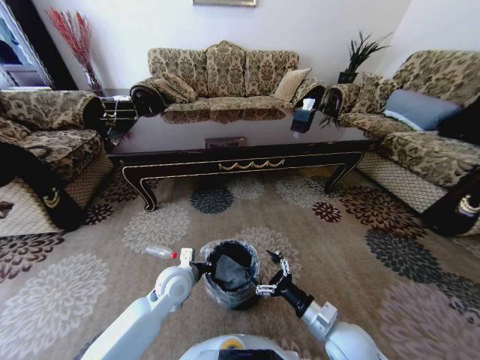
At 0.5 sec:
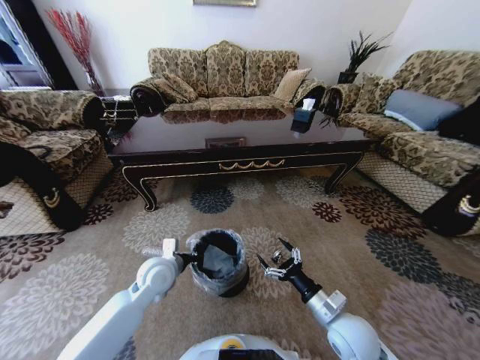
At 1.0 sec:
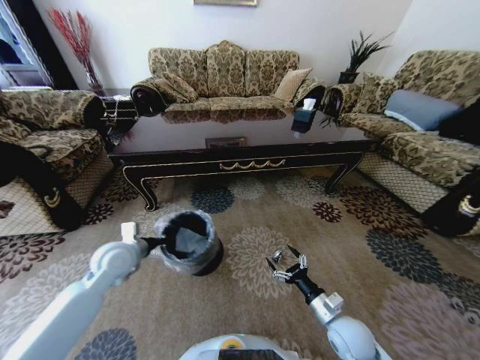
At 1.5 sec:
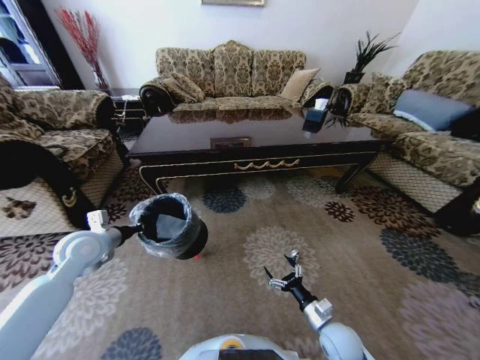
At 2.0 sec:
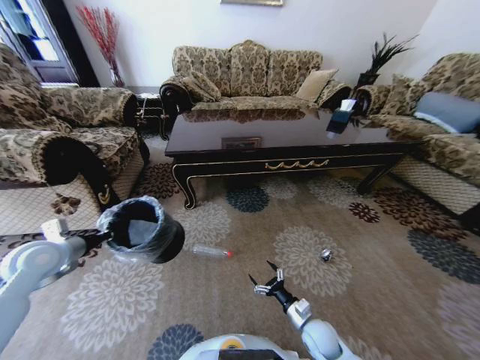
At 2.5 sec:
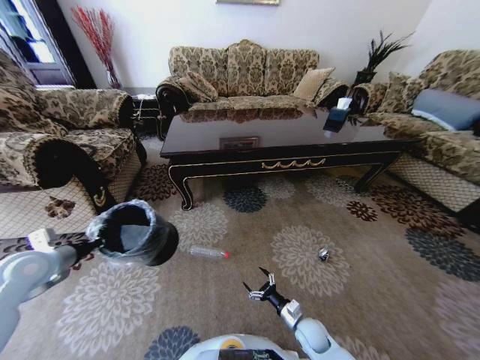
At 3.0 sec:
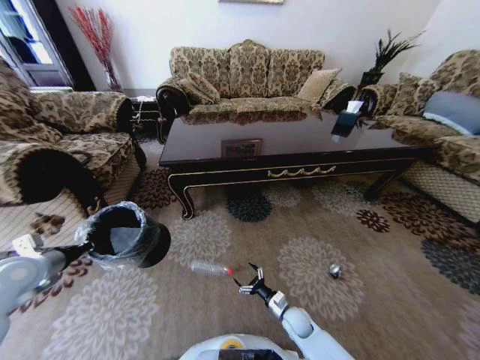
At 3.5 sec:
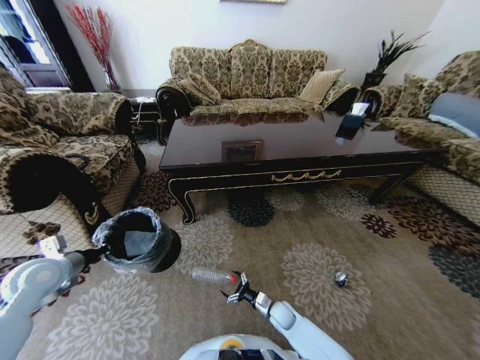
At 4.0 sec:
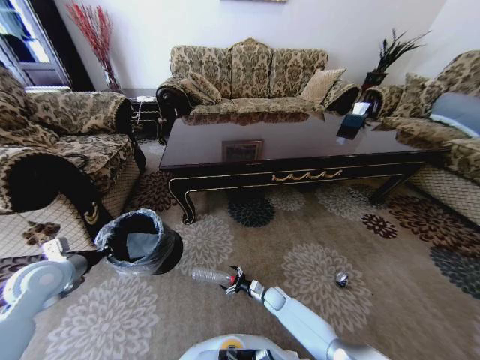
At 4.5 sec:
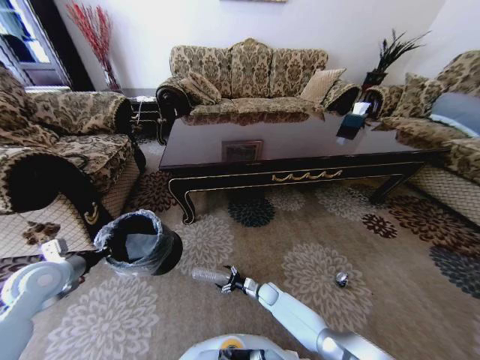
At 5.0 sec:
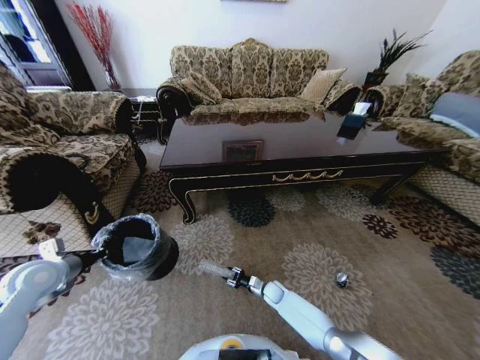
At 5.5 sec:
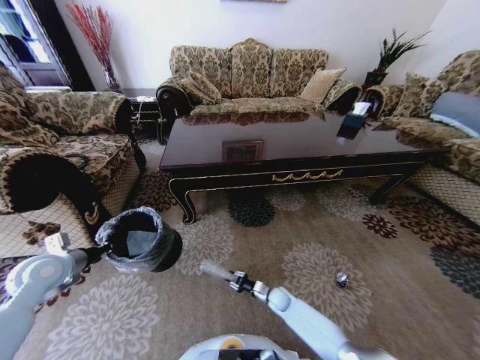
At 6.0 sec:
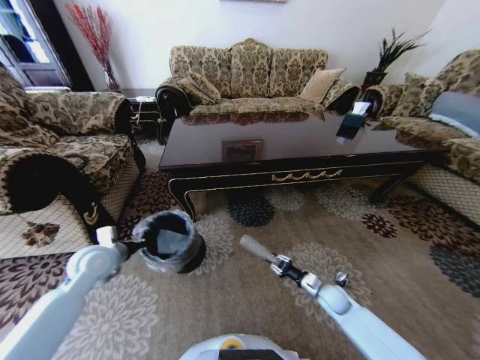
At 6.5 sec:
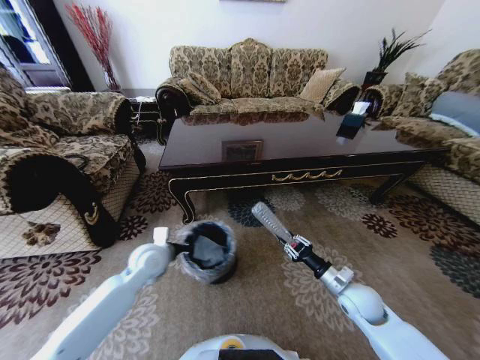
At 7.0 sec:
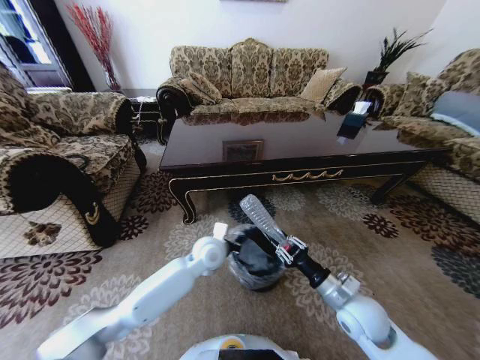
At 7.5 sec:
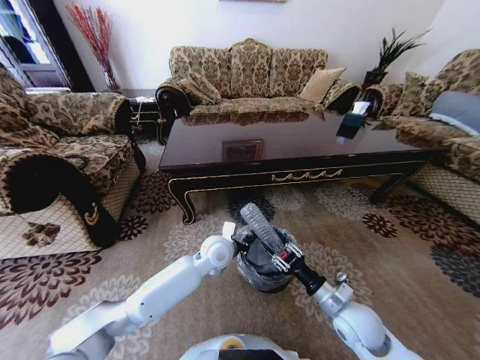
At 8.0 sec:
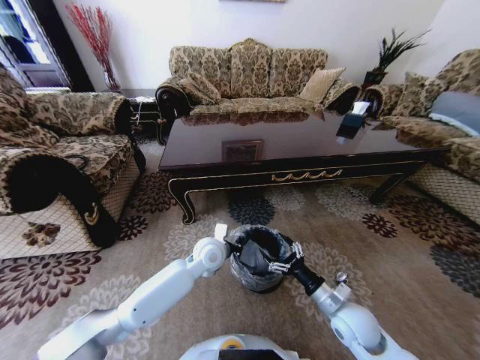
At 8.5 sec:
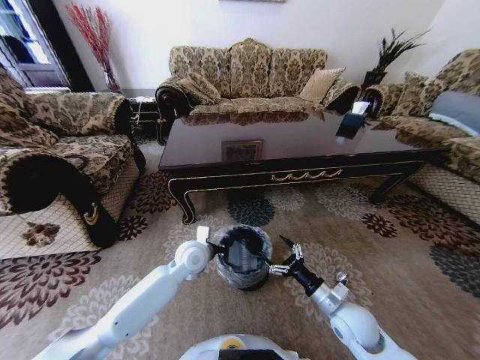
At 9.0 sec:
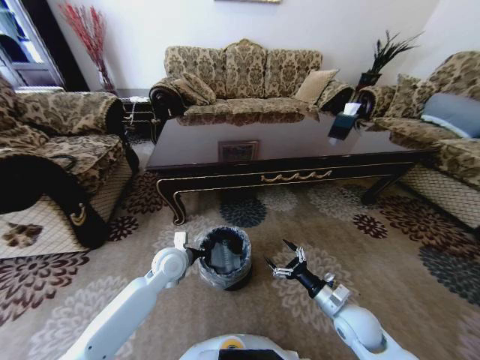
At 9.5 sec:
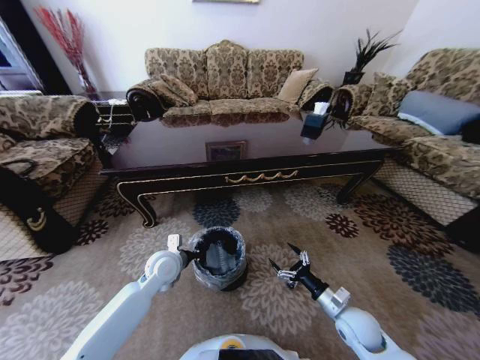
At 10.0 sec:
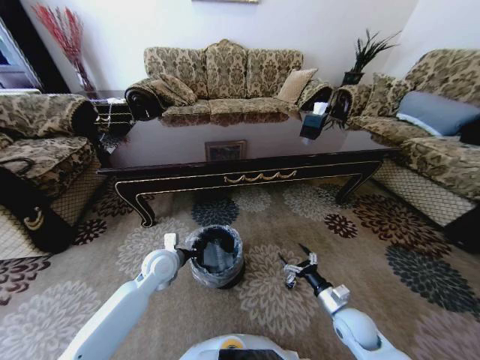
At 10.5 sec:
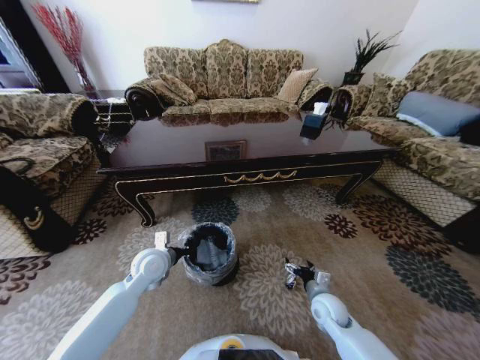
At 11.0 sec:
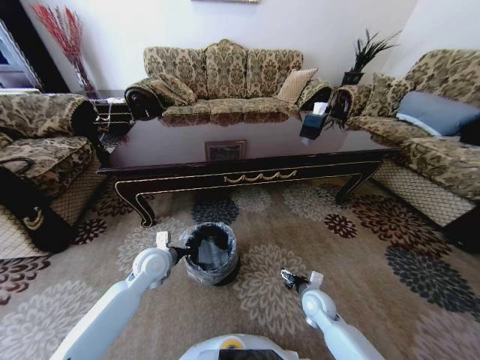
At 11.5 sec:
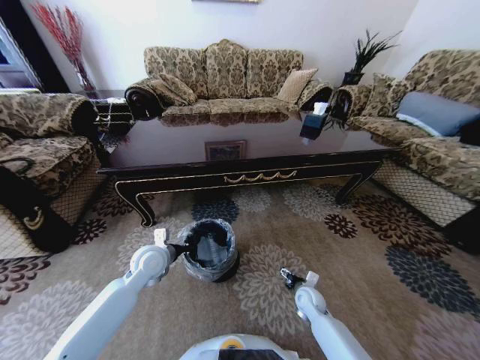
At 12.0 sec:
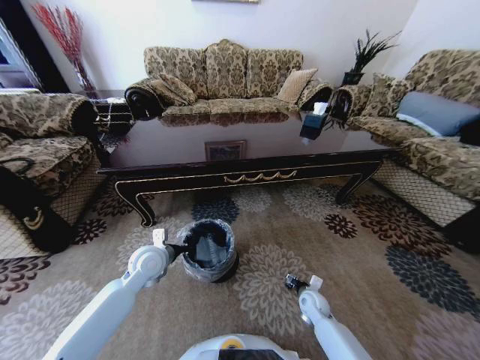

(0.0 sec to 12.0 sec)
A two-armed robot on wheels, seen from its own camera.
Task of the whole recording: Move to the front of the table and pick up the trash from the floor, then place it into the trash bin.
0.0 sec - 2.0 sec: The left gripper travels to the left and upward by about 30 cm, while the right gripper travels downward by roughly 15 cm.
2.0 sec - 4.0 sec: The right gripper shifts about 20 cm forward, downward and to the left.
4.0 sec - 6.0 sec: The left gripper goes approximately 10 cm to the right and forward, while the right gripper heads to the right and upward, covering about 20 cm, and closes.
6.0 sec - 8.0 sec: The left gripper travels to the right by some 30 cm. Meanwhile the right gripper is displaced upward, backward and to the left by roughly 15 cm, and opens.
8.0 sec - 10.0 sec: The left gripper is displaced to the left by some 15 cm. The right gripper travels downward by approximately 5 cm.
10.0 sec - 12.0 sec: The right gripper heads downward and forward, covering some 10 cm.

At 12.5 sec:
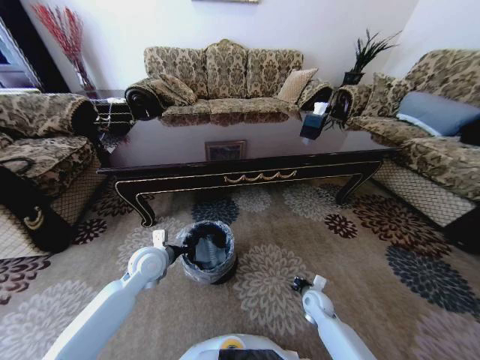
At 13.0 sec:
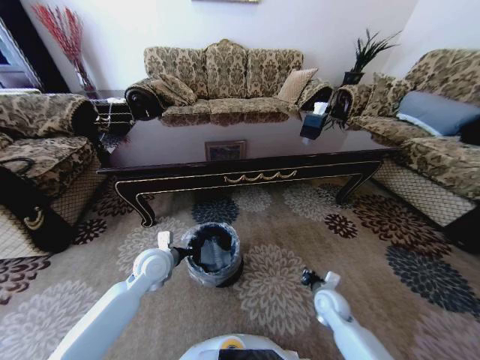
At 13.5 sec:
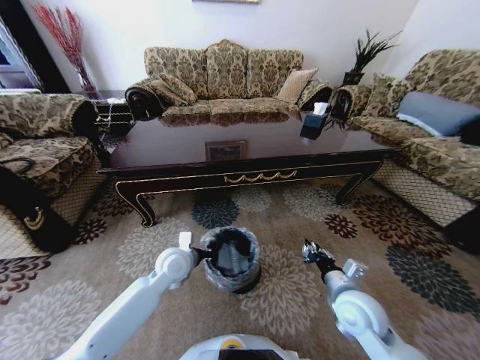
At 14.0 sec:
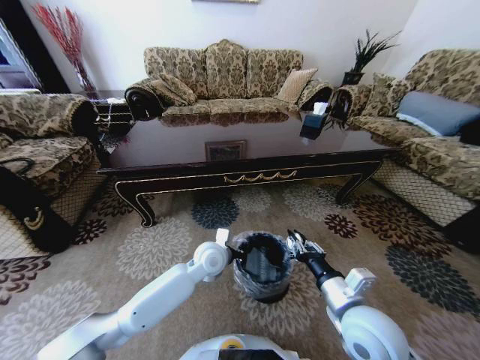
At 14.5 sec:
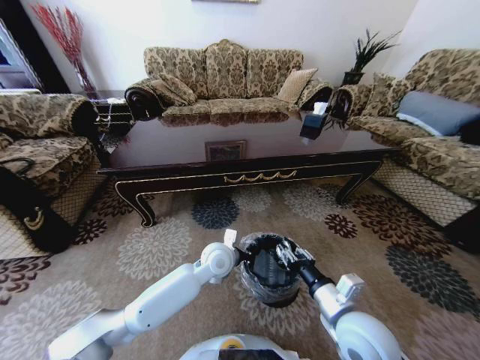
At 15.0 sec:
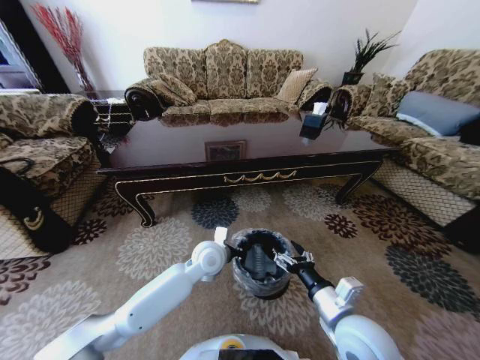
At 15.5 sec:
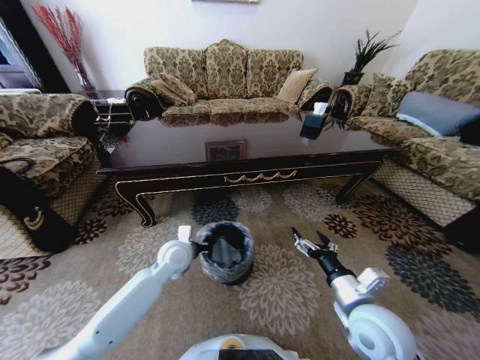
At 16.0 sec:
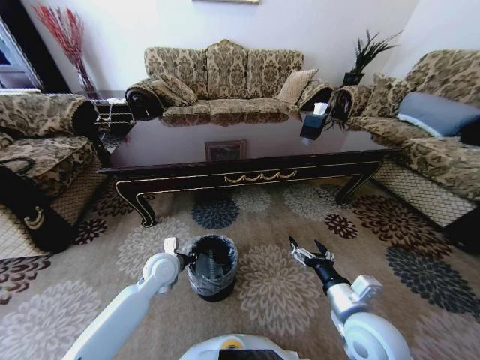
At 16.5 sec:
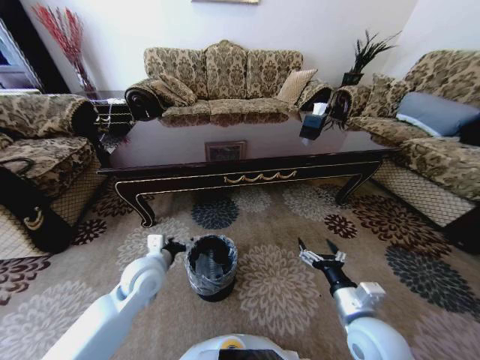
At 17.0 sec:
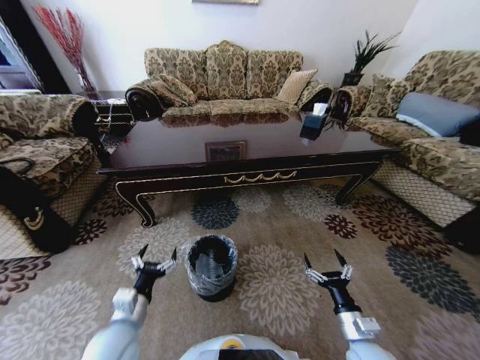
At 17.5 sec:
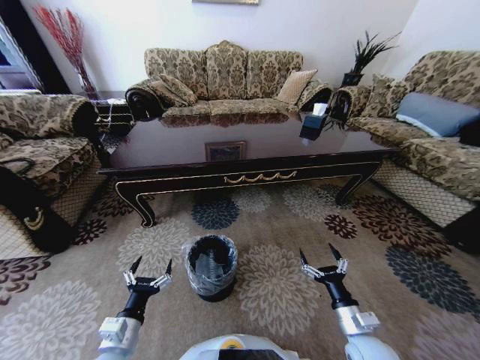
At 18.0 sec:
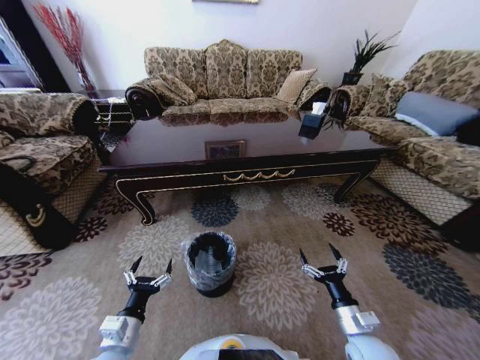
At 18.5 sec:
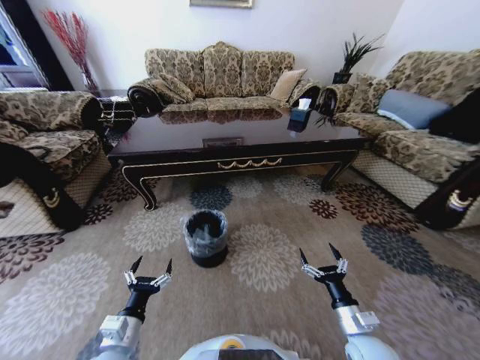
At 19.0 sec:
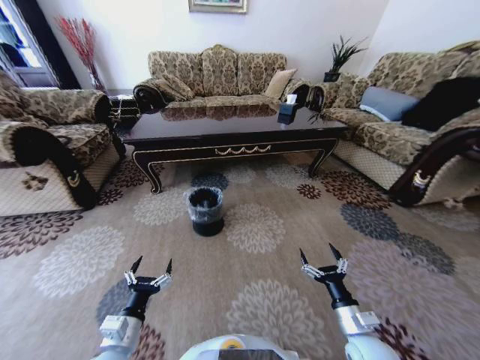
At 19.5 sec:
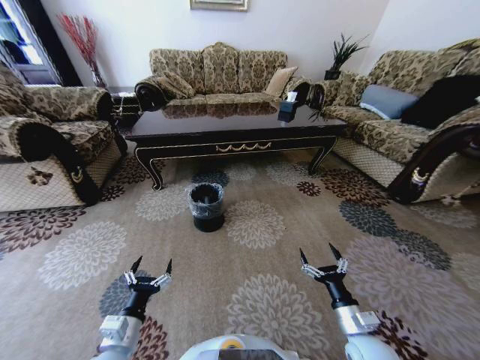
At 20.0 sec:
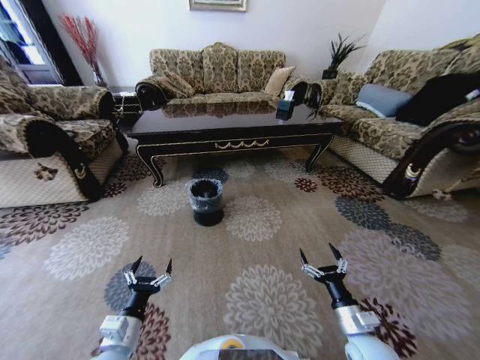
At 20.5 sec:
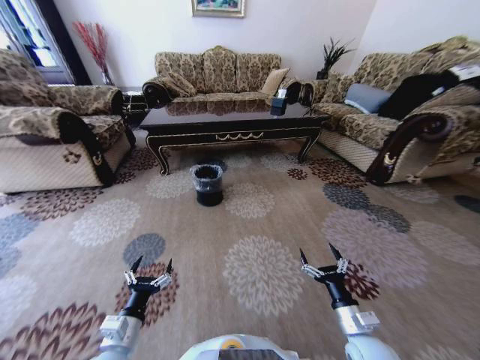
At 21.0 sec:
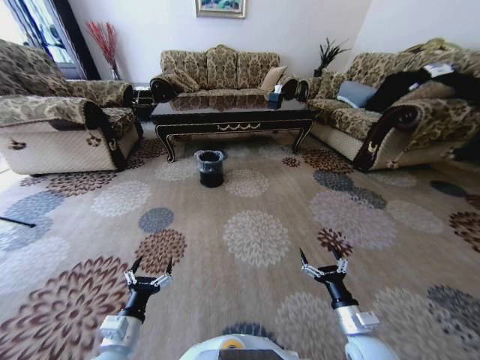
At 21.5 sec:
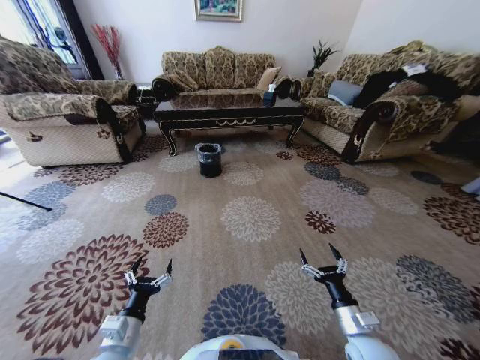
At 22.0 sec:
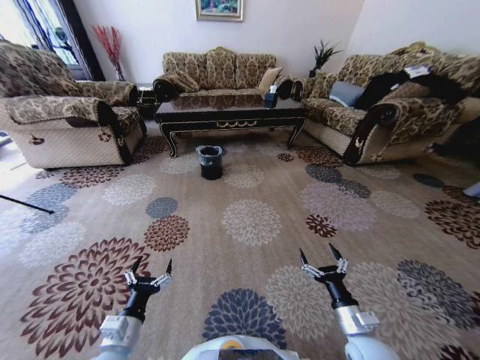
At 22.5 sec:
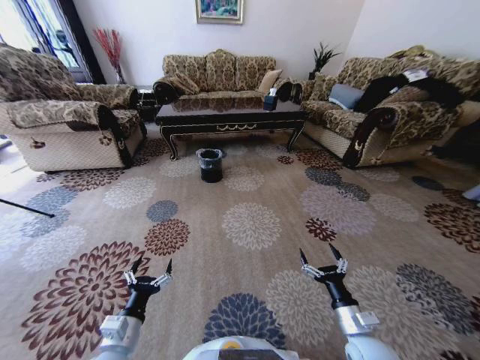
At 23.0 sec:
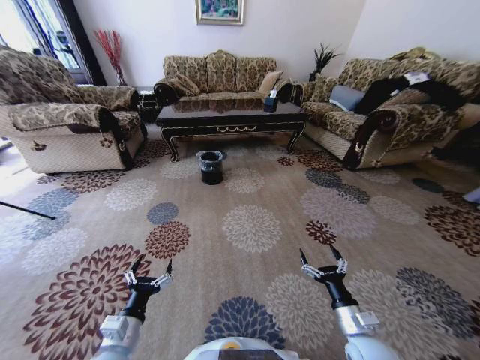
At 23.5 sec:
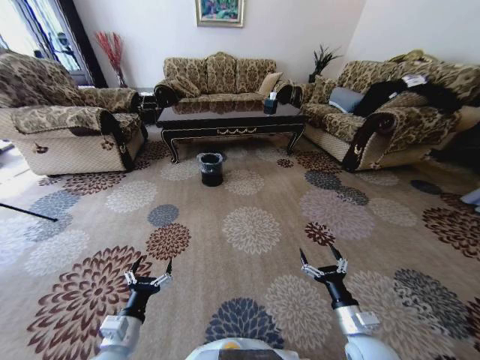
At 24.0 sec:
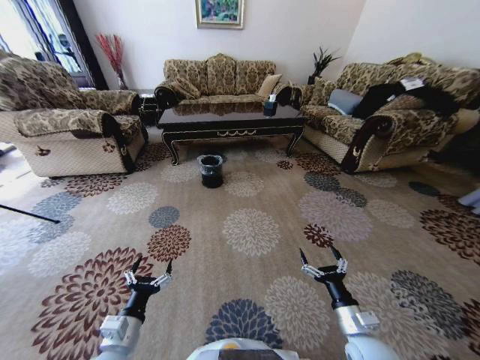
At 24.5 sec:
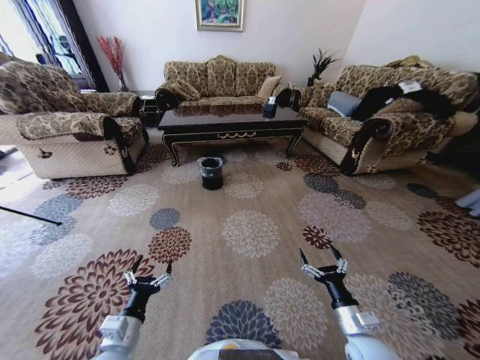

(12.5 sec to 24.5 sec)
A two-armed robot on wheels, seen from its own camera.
Task of the whole recording: Move to the front of the table and pick up the trash from the floor, then place it into the trash bin.
12.5 sec - 14.5 sec: The left gripper is displaced to the right by roughly 20 cm. Meanwhile the right gripper travels upward and backward by approximately 30 cm.
14.5 sec - 16.5 sec: The right gripper opens; the left gripper heads to the left, covering approximately 20 cm, and opens up.
16.5 sec - 18.5 sec: The right gripper shifts about 10 cm downward. Meanwhile the left gripper shifts some 20 cm backward and downward.

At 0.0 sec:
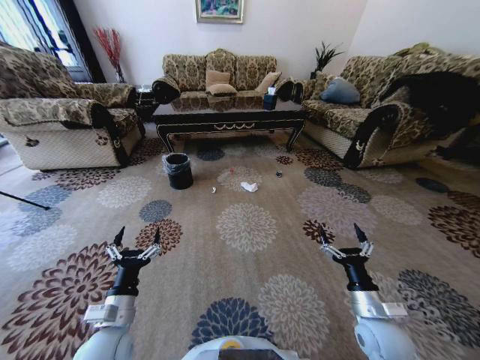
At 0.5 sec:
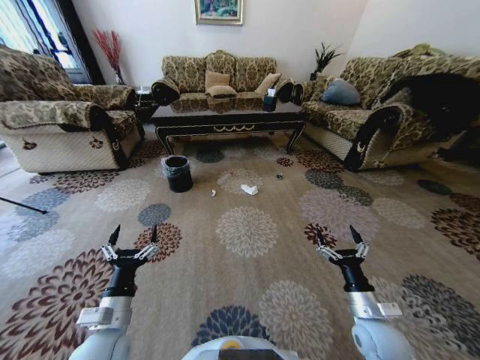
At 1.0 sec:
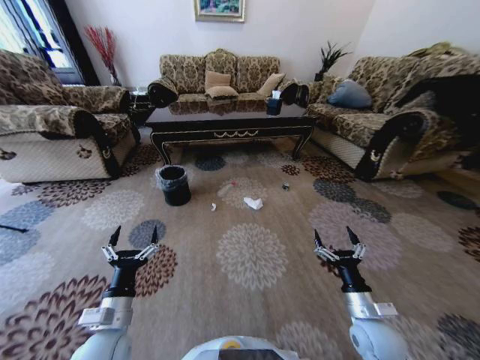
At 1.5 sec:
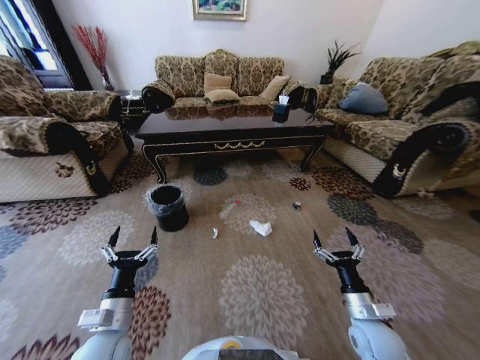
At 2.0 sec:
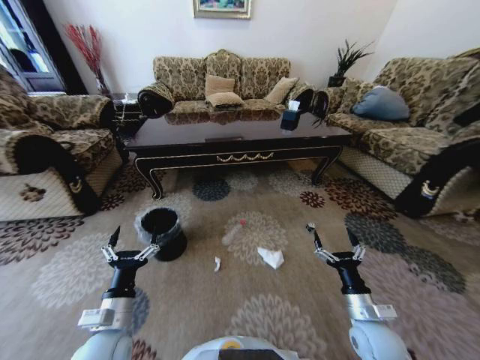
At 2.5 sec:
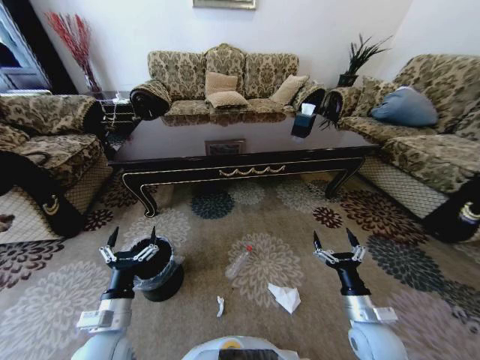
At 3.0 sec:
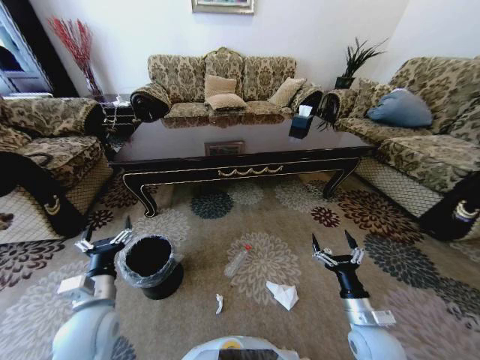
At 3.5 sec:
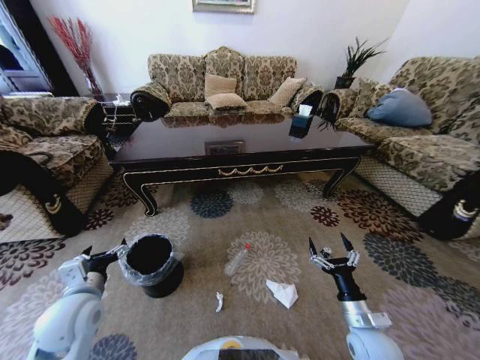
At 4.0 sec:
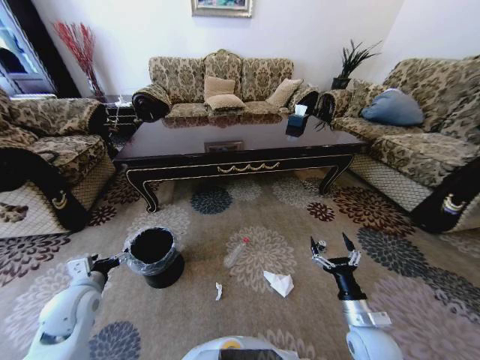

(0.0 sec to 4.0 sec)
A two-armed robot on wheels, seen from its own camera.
Task of the whole recording: Move to the front of the table and pick up the trash from the floor, then place it into the trash bin.
2.0 sec - 4.0 sec: The left gripper goes roughly 15 cm to the left and forward.
